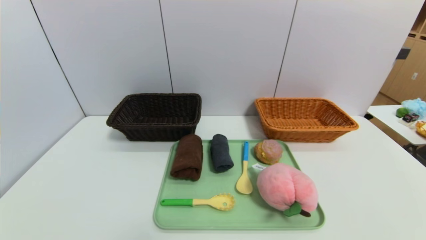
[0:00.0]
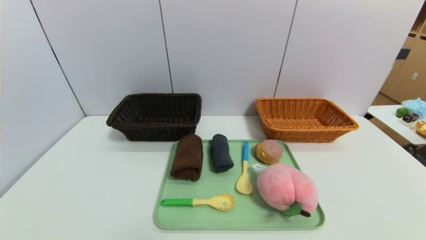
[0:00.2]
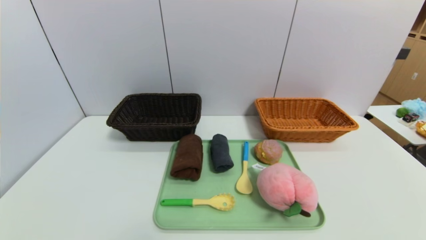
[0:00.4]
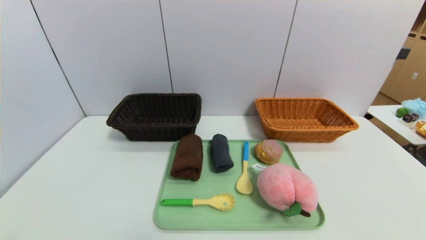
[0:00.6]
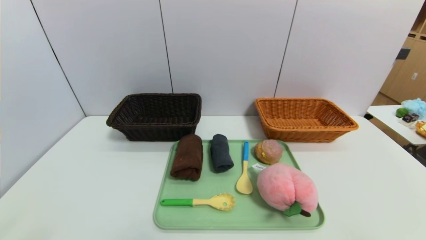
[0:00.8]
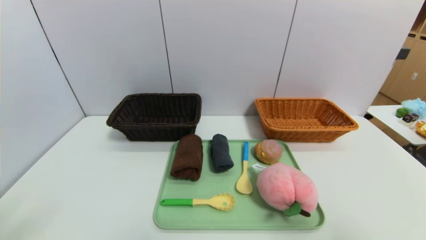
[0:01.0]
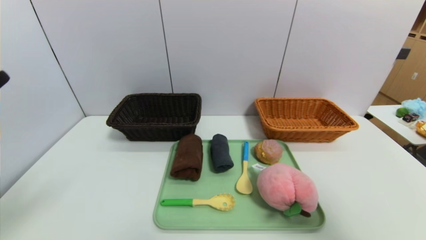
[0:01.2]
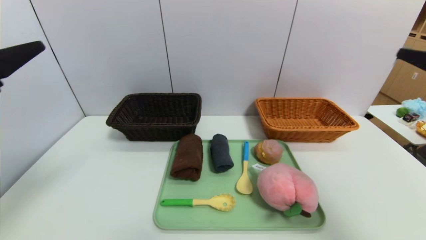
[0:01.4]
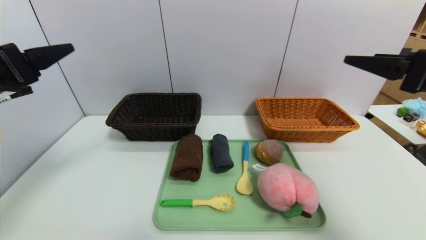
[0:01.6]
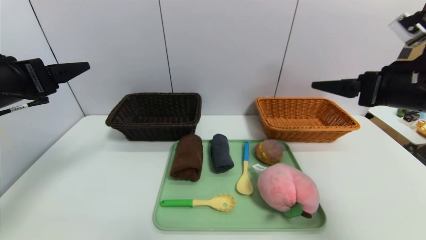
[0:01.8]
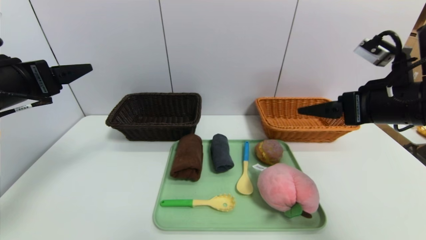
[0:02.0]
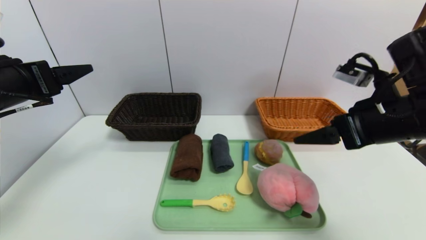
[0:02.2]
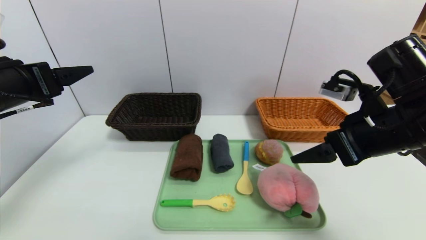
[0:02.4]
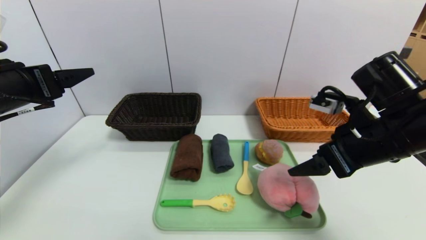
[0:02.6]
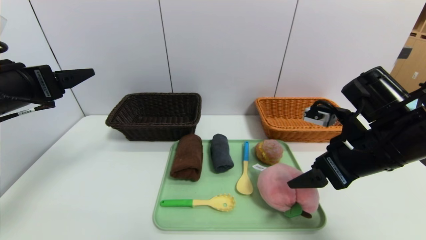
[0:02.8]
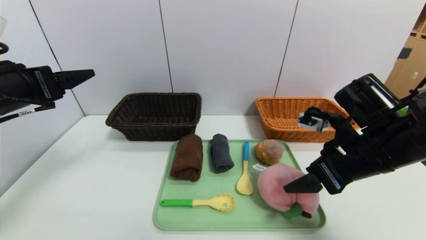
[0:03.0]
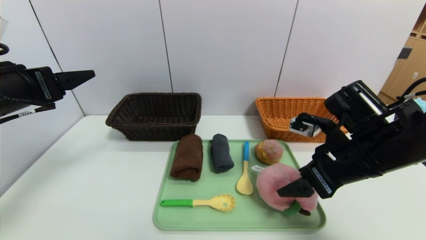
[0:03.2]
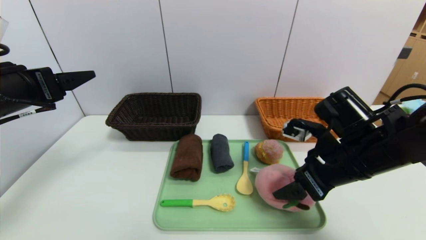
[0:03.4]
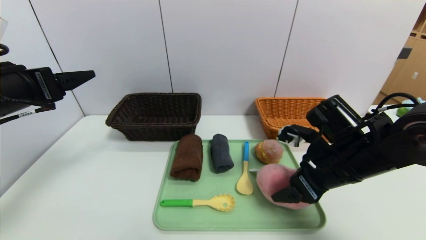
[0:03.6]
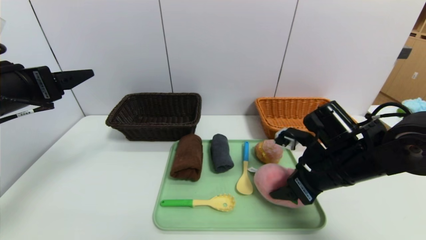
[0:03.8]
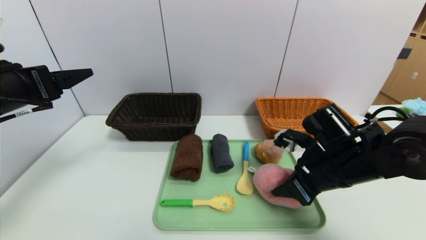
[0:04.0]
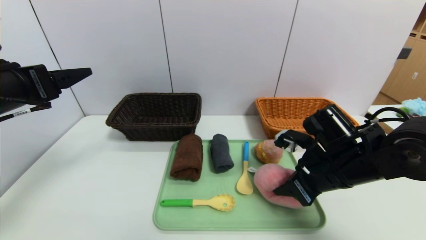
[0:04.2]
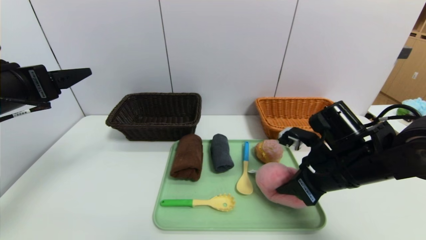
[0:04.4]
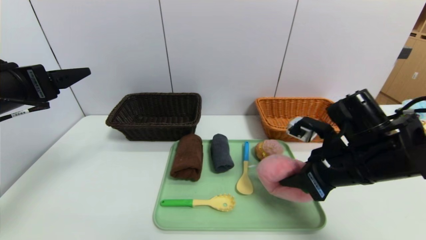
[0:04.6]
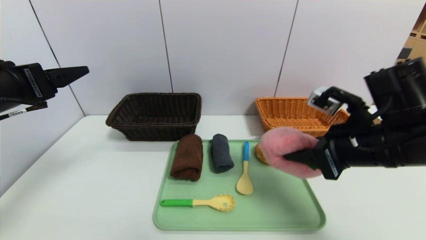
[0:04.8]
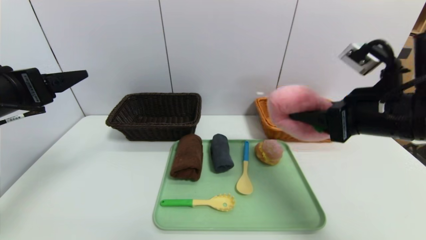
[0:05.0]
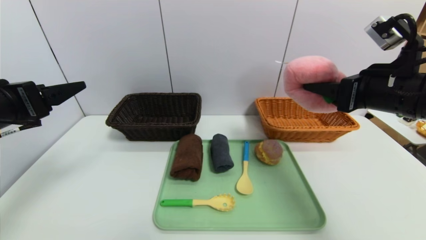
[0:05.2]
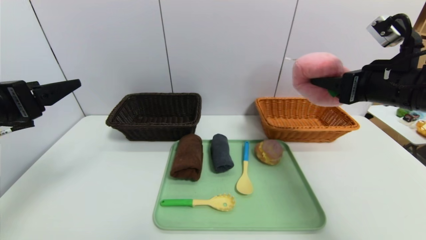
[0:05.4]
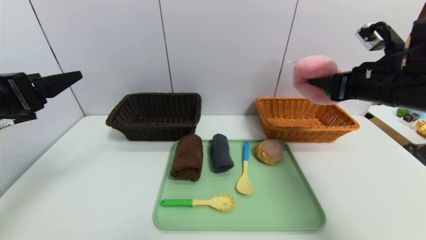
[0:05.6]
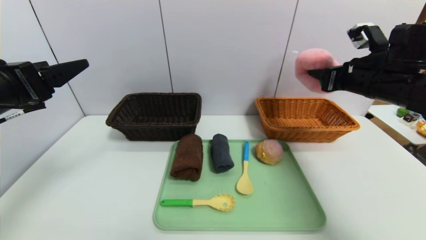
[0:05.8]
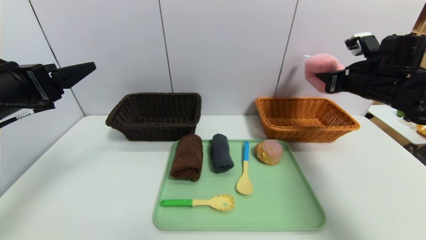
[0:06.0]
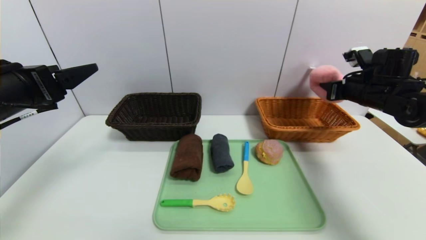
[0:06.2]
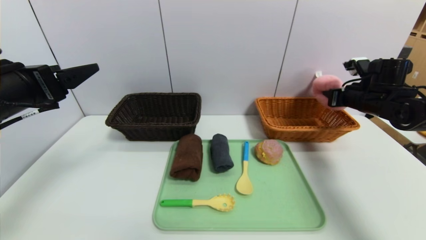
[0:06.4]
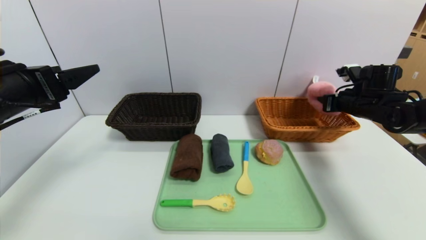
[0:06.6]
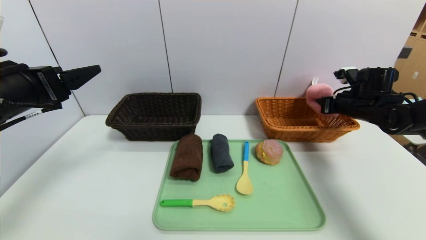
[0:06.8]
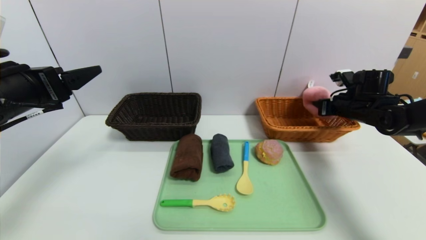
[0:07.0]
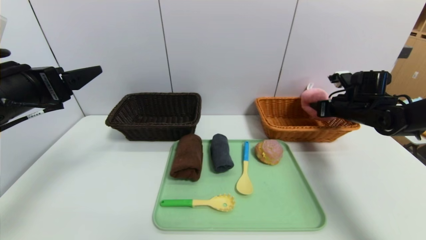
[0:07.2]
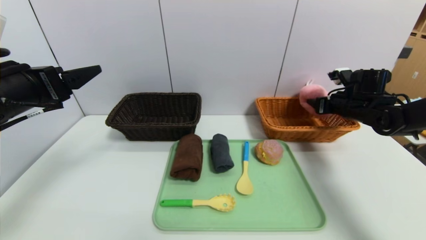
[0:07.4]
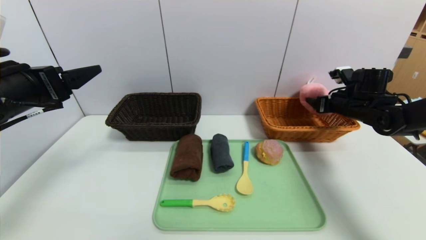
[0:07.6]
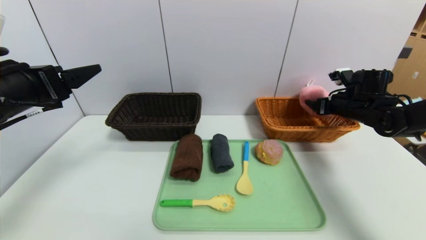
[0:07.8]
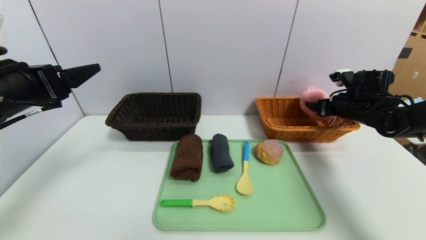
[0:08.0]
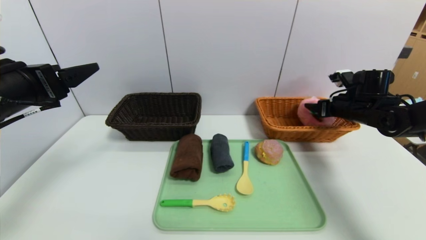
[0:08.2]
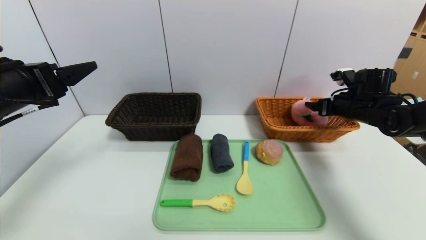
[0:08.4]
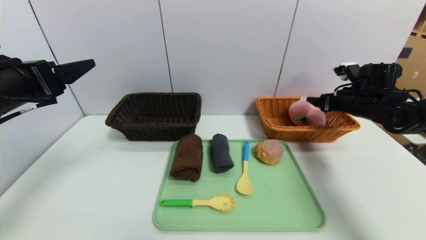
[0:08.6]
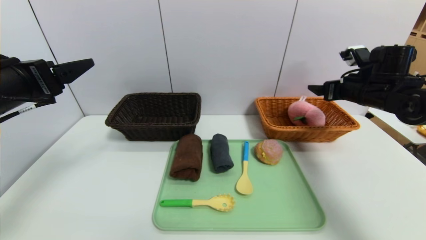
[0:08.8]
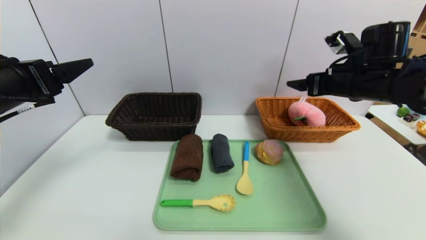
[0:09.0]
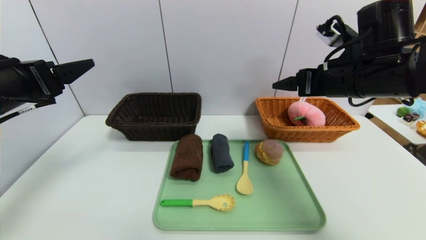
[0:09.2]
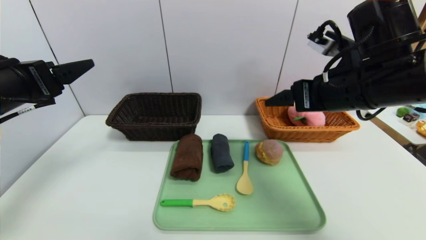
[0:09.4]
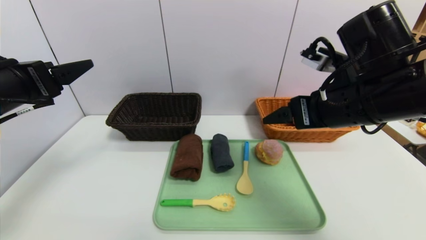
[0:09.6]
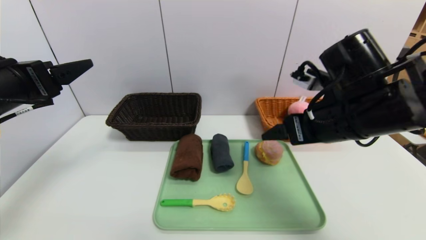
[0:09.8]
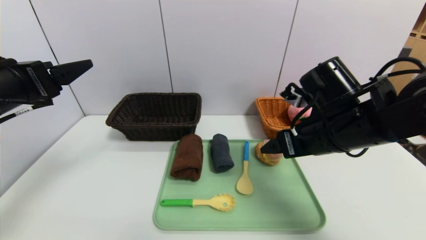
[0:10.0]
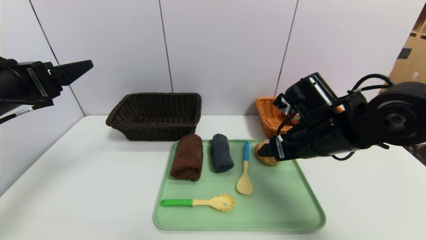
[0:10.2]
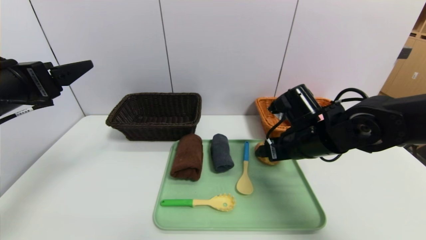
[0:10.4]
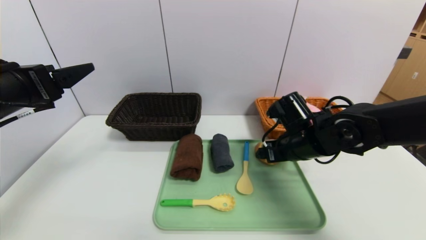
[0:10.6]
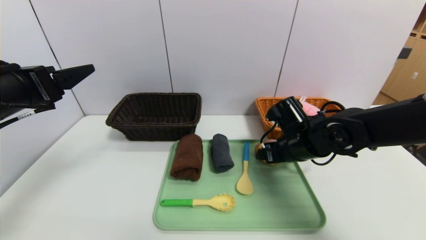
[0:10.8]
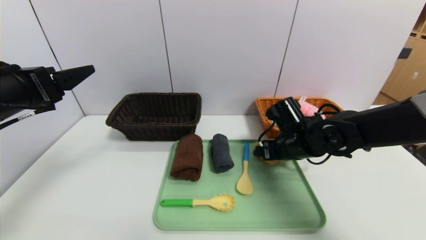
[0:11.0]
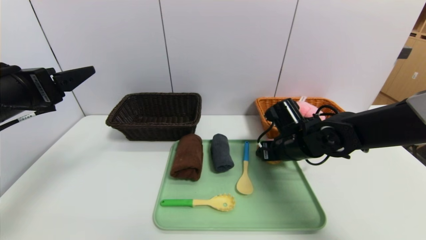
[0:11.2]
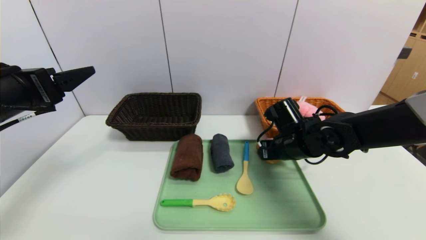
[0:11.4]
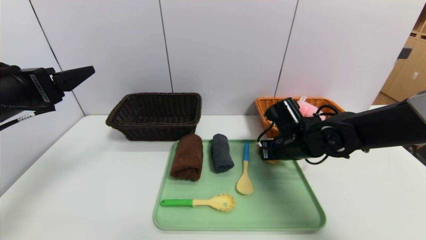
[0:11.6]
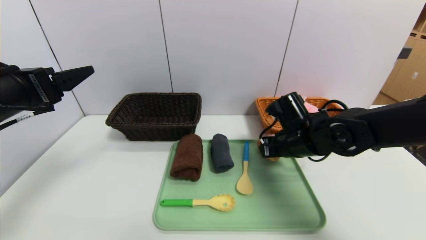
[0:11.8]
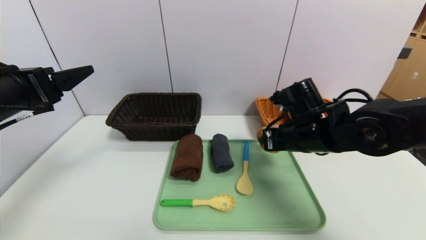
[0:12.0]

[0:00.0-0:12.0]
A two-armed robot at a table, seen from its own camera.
Task of the whole recording: place the food in the right basket with the right gripper, and place the non food items in the left basket with the left gripper.
Step, 0:00.0 to 0:08.6: Grasp the peach and put it in the right basket.
0:00.0 to 0:01.6: Both grippers move upward and forward, about 30 cm.
0:01.6 to 0:03.0: The right gripper moves downward and to the left, some 15 cm.
0:03.0 to 0:04.4: The right gripper moves roughly 5 cm, and closes its fingers.
0:04.4 to 0:06.0: The right gripper is displaced forward, to the right and upward by roughly 20 cm.
0:06.0 to 0:07.6: The right gripper travels downward by about 5 cm, and opens its fingers.
0:07.6 to 0:09.0: The right gripper heads upward, to the left and backward, covering about 15 cm.
0:09.0 to 0:10.4: The right gripper heads to the left and downward, covering approximately 15 cm.
0:10.4 to 0:12.0: The right gripper closes.

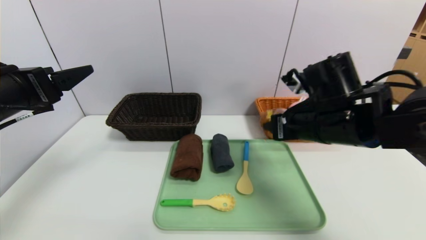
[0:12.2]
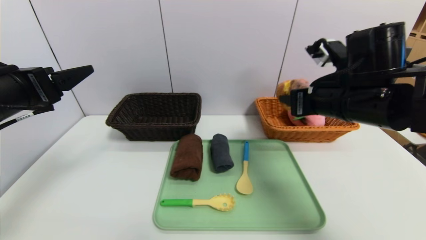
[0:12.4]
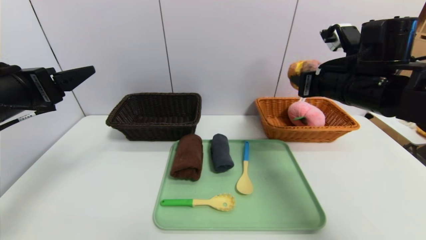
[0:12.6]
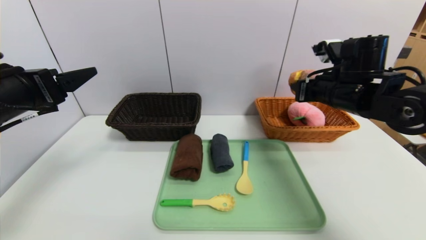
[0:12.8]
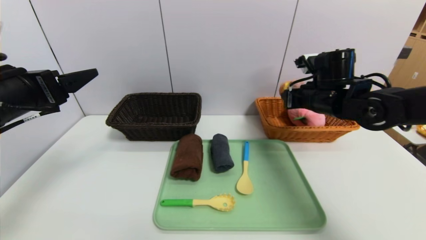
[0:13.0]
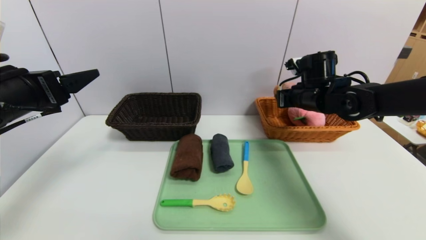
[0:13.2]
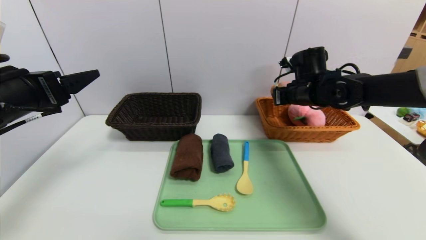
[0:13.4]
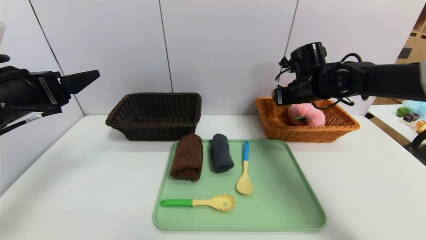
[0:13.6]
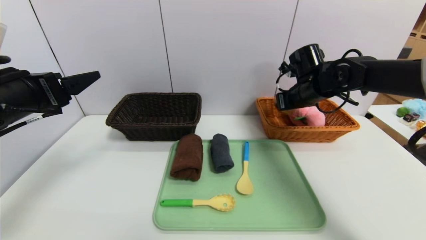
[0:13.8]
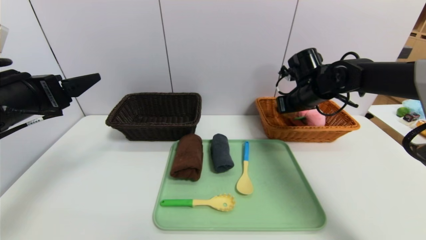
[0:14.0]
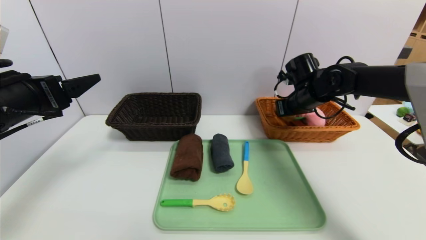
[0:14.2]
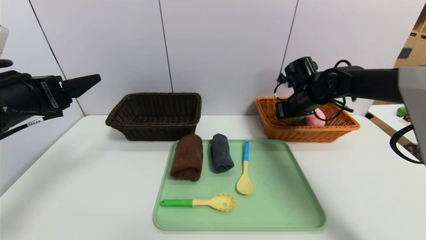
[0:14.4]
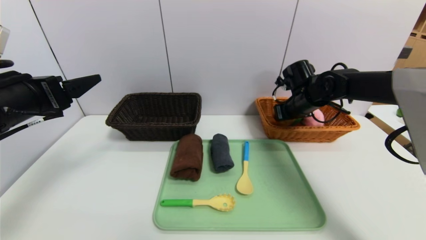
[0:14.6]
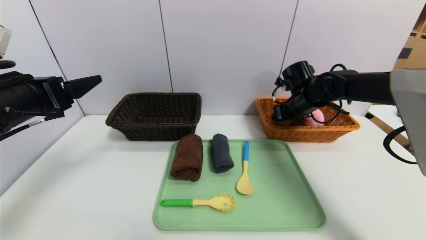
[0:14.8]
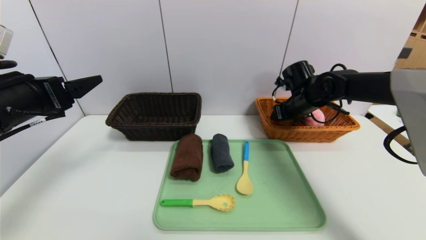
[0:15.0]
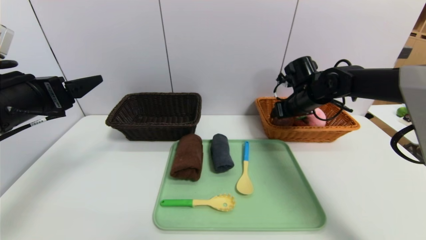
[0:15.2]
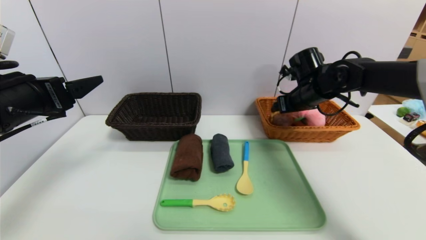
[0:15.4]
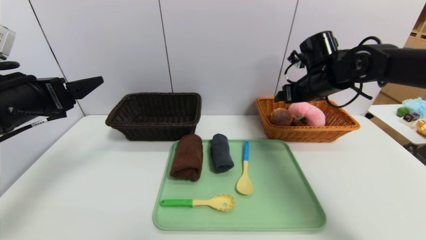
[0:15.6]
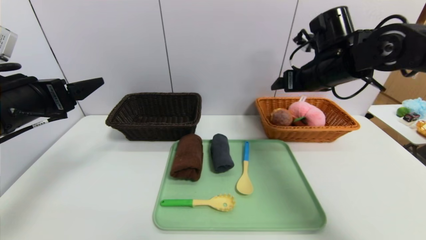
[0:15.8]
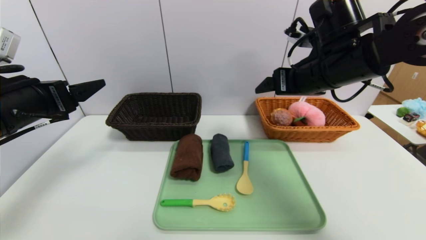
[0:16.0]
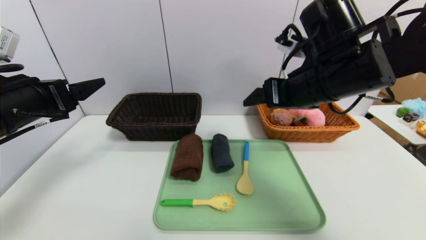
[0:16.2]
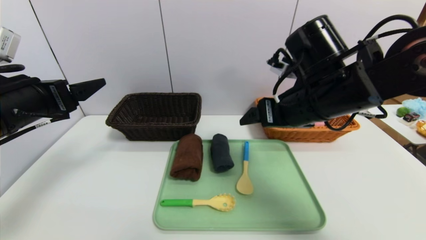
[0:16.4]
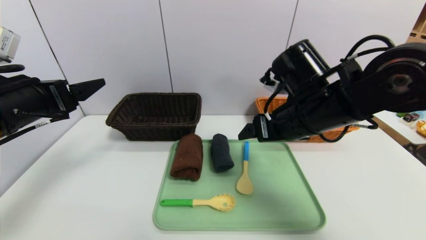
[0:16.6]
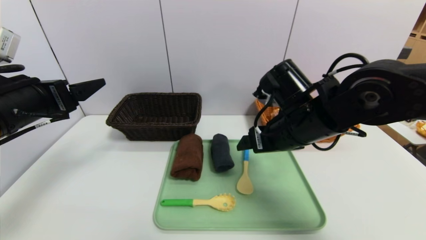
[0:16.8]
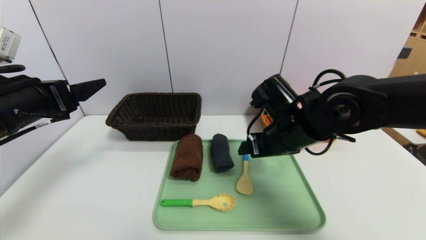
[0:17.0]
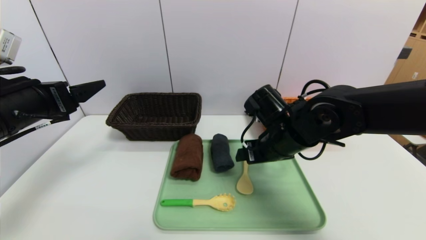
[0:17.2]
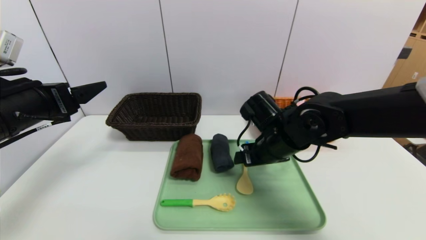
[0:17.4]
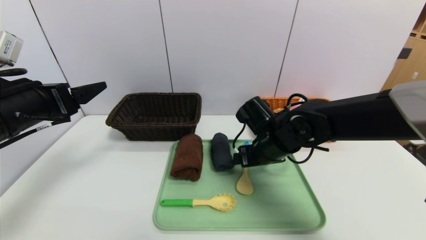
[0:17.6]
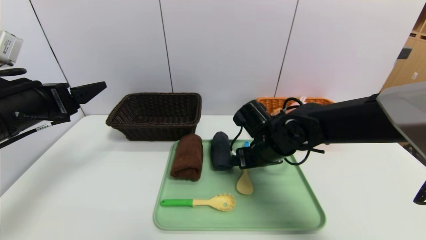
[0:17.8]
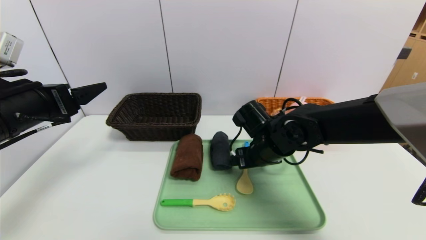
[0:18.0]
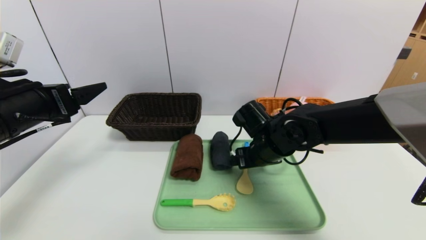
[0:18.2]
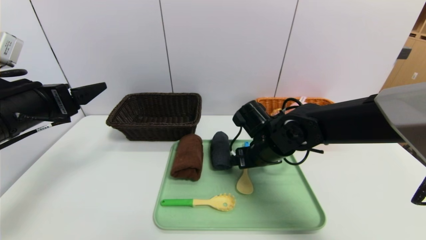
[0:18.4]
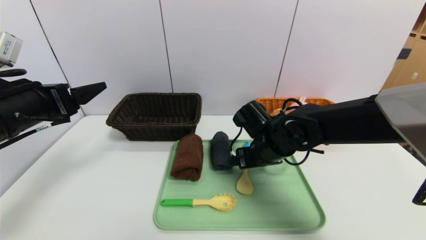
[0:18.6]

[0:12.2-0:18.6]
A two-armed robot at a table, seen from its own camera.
Task of the whole recording: place the food in the right basket with the right gripper, and place the non food items in the left basket with the left gripper.
Step, 0:12.2 to 0:16.0: Grasp the round bread and put it in the right basket.
0:12.2 to 0:13.8: The right gripper heads forward, covering approximately 15 cm.
0:13.8 to 0:15.4: The right gripper opens its fingers.
0:15.4 to 0:17.0: The right gripper heads backward and to the left, covering roughly 15 cm.
0:17.0 to 0:18.6: The right gripper heads downward, covering approximately 5 cm.
